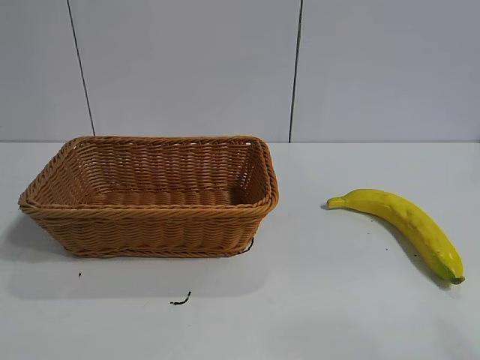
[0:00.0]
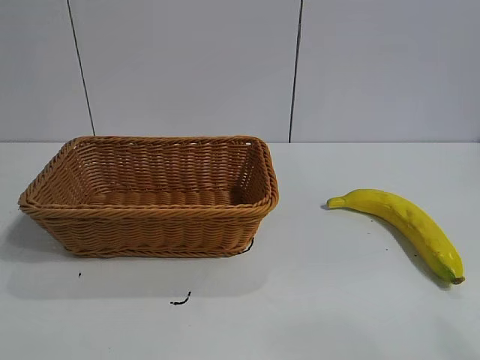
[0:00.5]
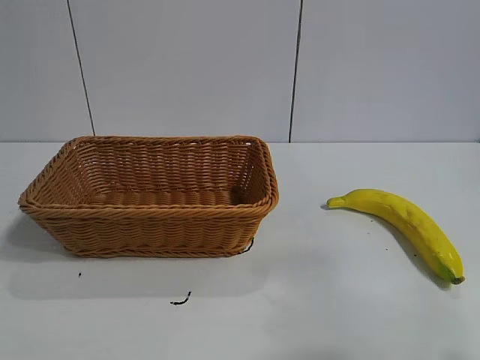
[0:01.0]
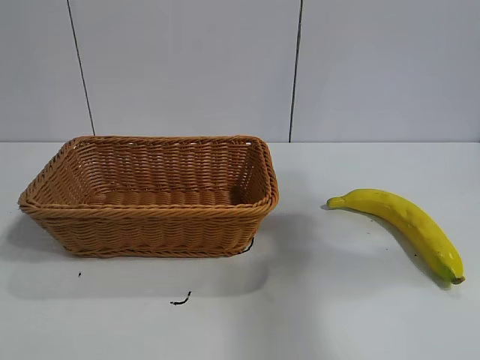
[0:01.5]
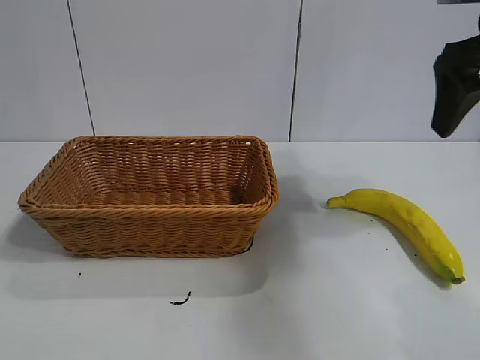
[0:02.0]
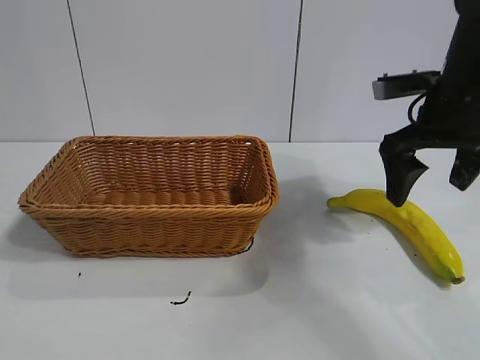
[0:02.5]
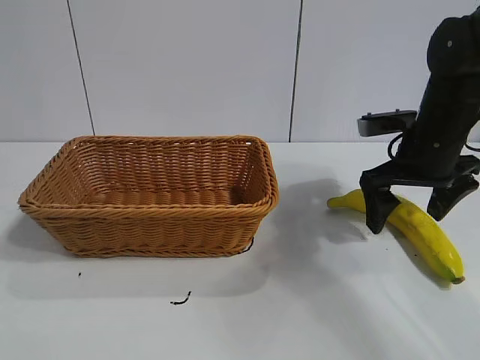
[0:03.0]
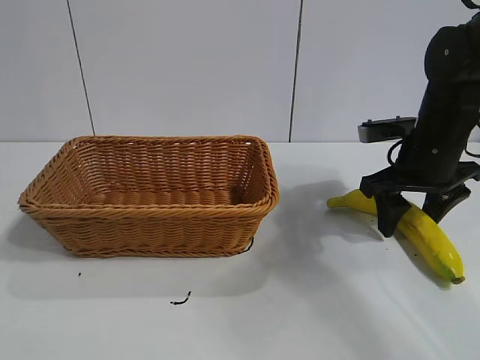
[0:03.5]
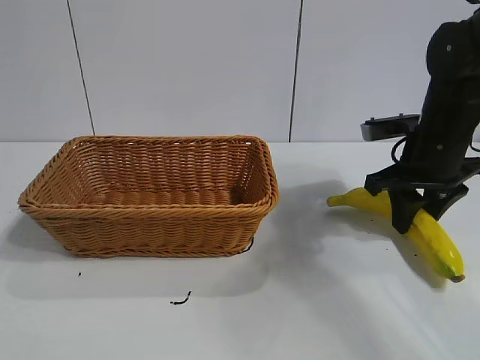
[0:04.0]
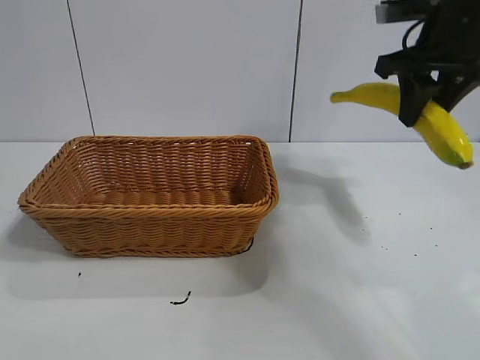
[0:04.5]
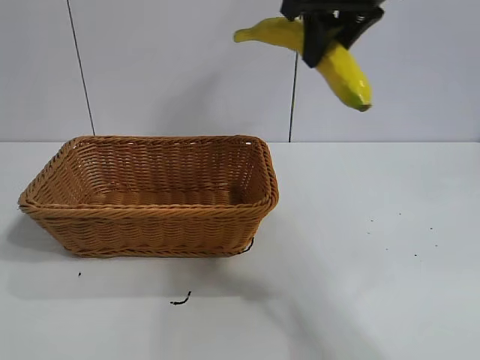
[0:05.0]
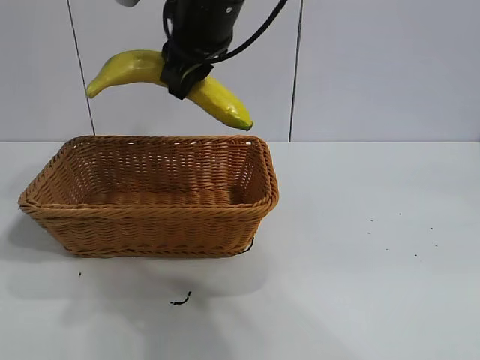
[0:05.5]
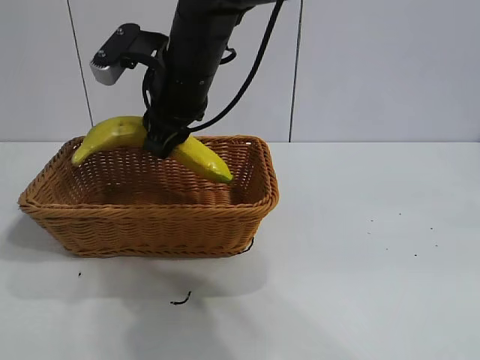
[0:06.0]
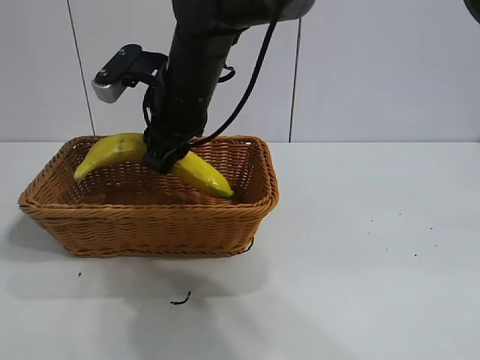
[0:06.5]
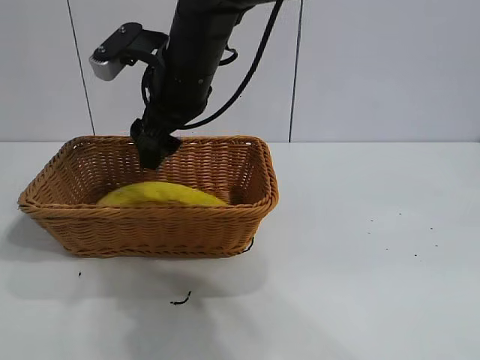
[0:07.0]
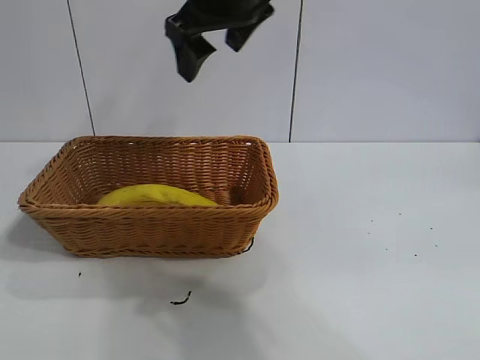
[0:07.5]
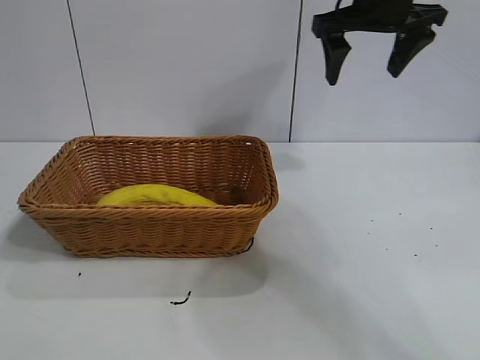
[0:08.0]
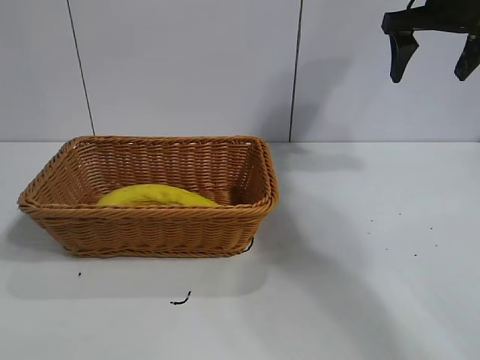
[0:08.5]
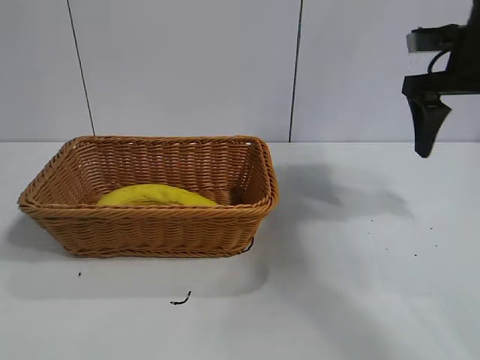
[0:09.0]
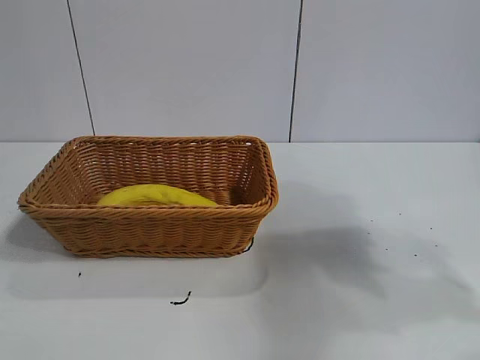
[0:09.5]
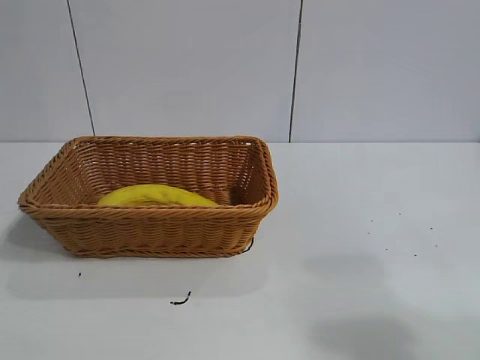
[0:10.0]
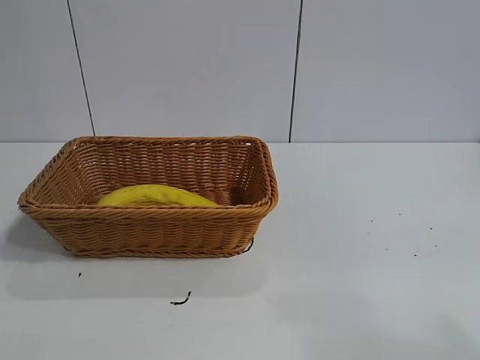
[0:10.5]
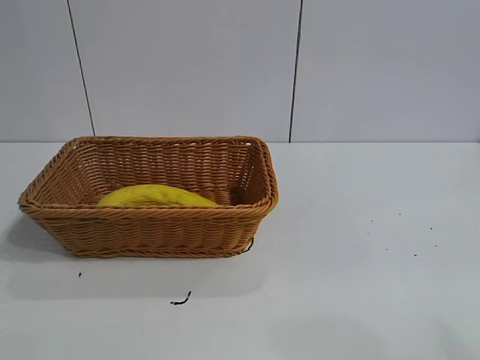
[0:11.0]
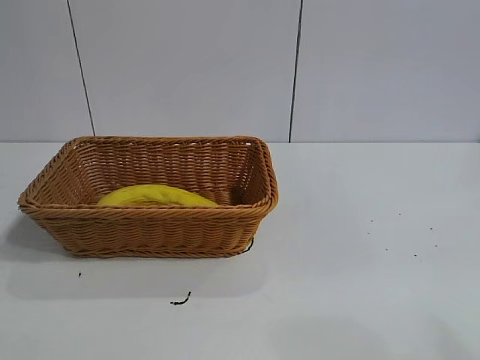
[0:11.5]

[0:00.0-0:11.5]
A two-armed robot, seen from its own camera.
Task of the whole recording: pick up the banana and put it into the basket.
Step, 0:02.0 to 0:04.0: Grasp the banana with right gripper.
Step, 0:04.5 to 0:06.5: Place the banana in the basket with right gripper.

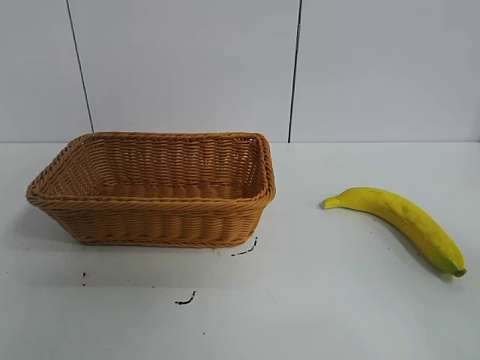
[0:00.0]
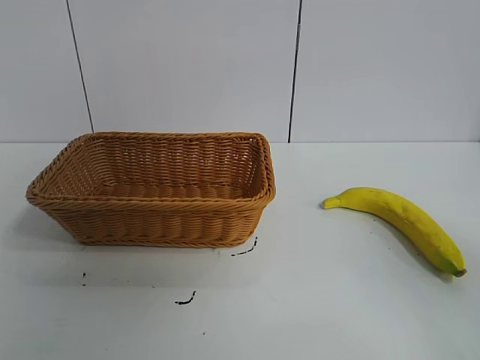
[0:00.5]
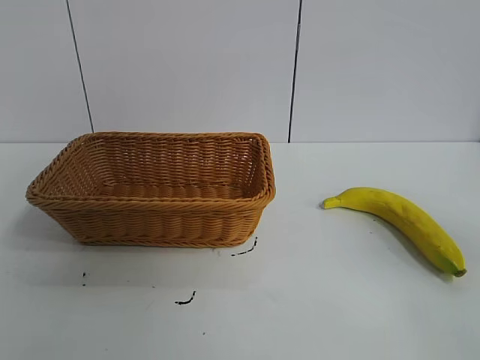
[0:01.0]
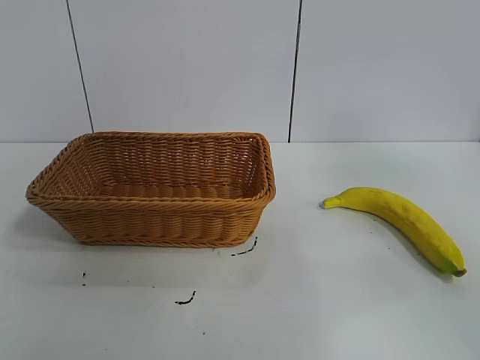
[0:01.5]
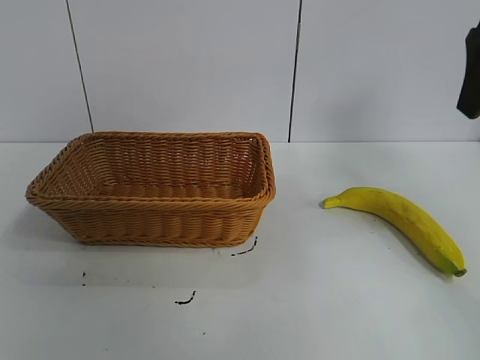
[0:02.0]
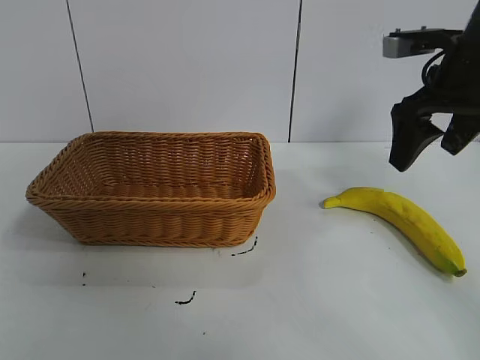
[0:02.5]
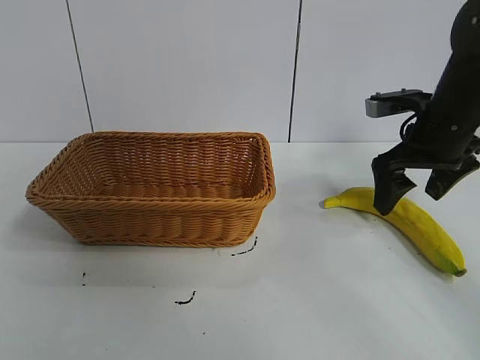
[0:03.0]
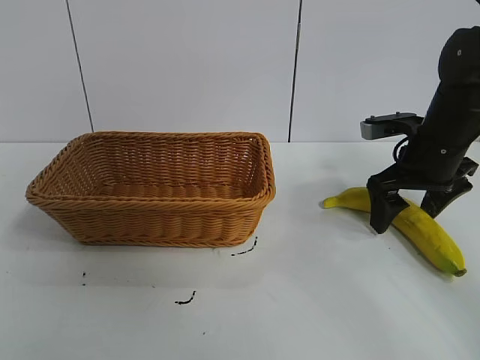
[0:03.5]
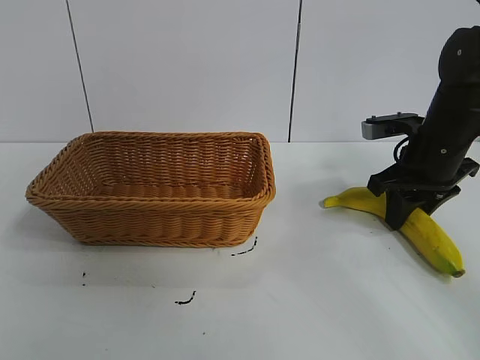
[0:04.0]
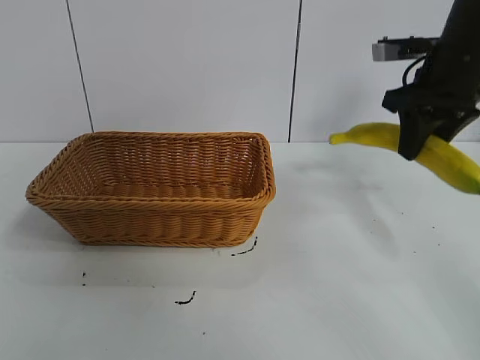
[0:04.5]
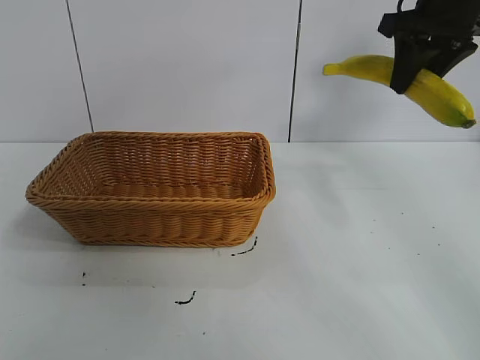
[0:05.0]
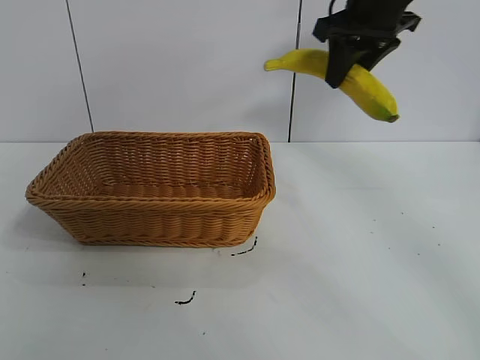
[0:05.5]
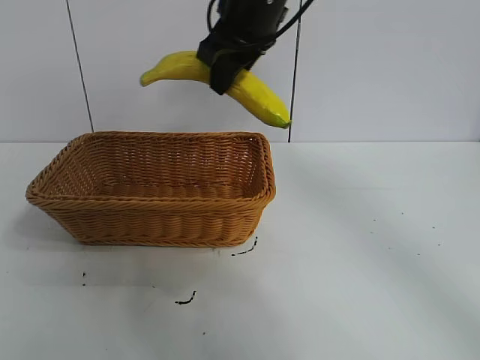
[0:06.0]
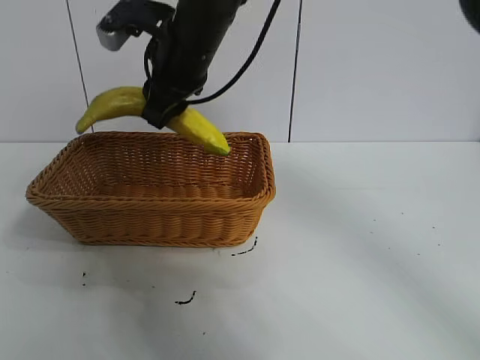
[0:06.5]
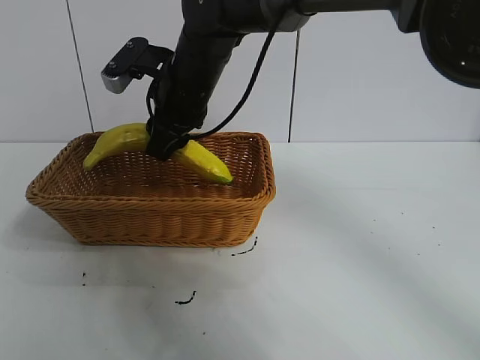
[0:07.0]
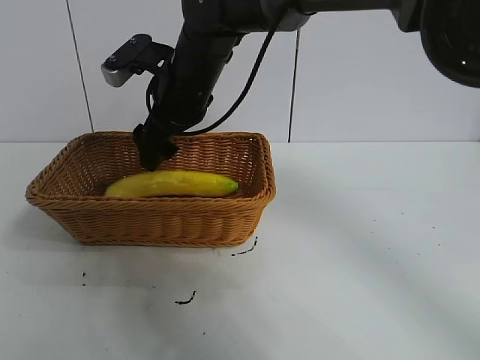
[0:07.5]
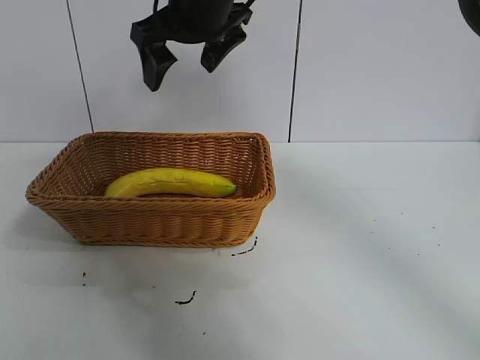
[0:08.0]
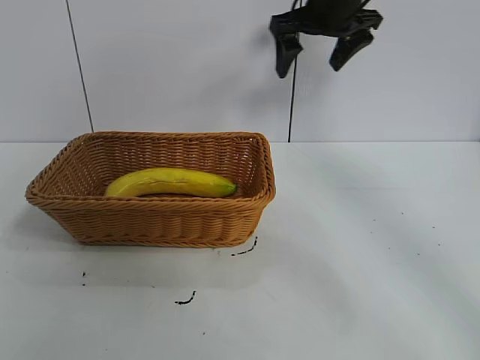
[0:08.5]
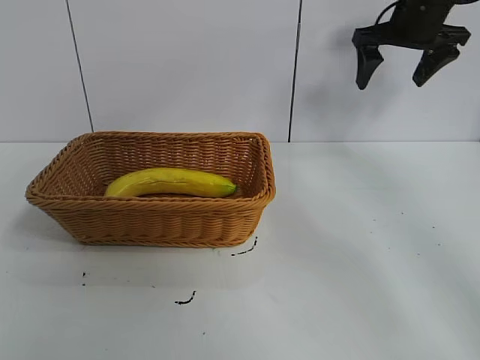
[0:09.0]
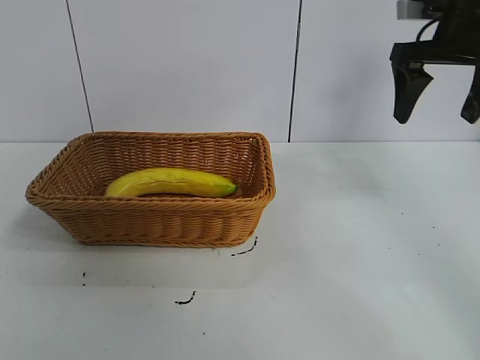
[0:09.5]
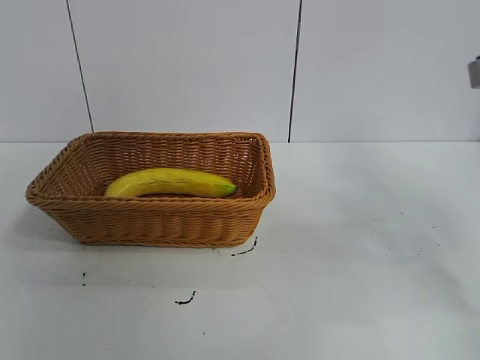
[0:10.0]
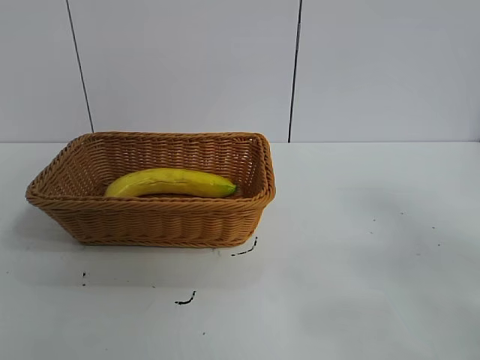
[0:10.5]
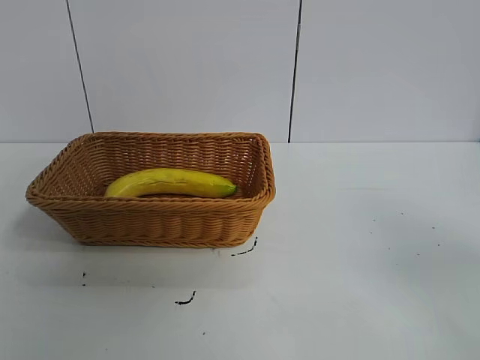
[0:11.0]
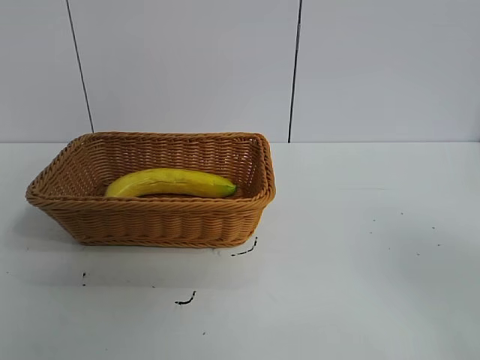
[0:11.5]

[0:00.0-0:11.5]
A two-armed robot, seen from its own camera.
Task of the whole recording: pick up the banana and put it into the basket.
Step, 0:01.0 to 0:04.0: Grasp the banana with right gripper.
Step, 0:04.5 to 0:07.5: Place the banana in the basket with right gripper.
